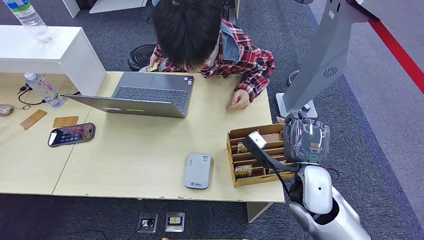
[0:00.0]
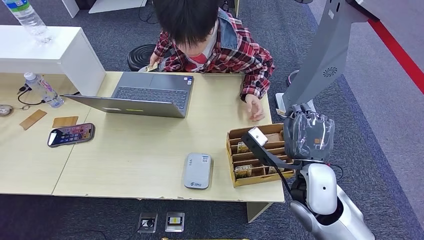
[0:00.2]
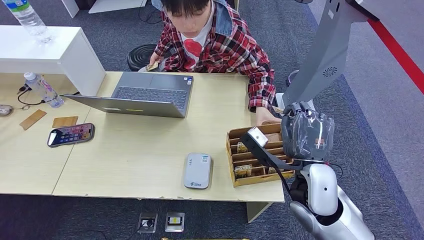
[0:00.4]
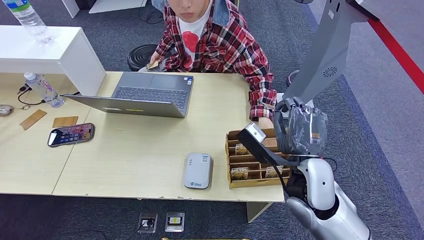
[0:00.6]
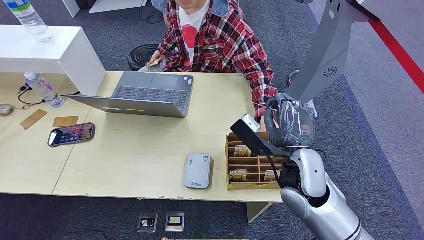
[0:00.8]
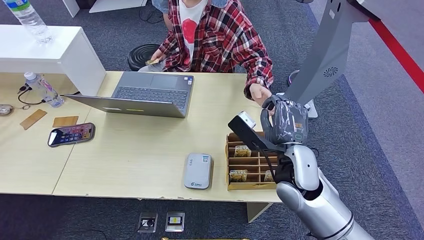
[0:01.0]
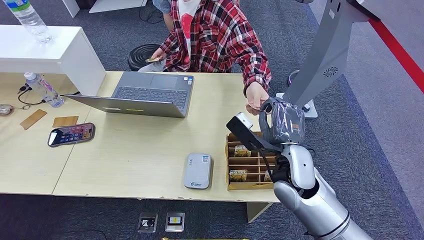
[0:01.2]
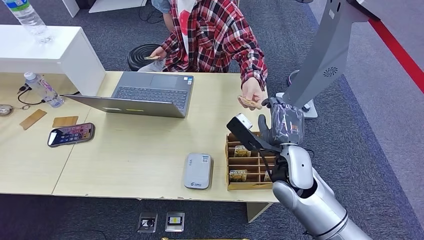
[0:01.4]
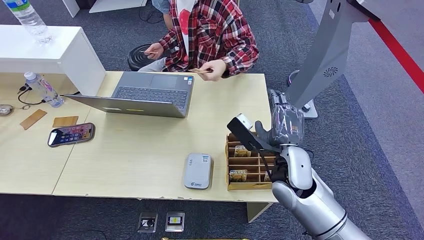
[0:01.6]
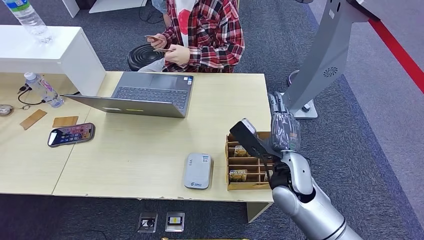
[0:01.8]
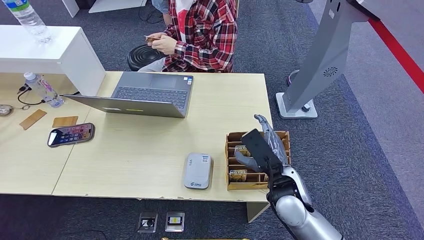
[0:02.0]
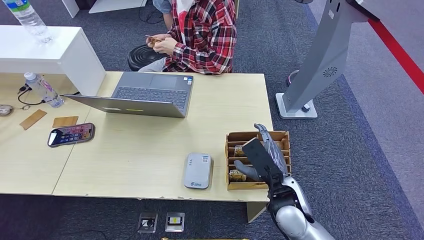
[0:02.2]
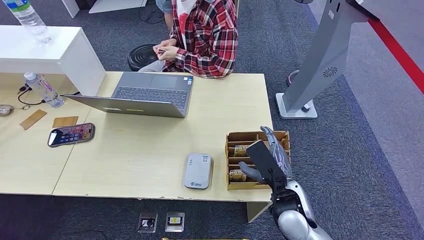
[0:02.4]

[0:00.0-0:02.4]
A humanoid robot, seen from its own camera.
Step, 0:00.4 to 0:02.4: Hand the room key to the person.
0:00.0 to 0:01.2: The right hand changes place by about 5 cm.
0:01.2 to 0:02.4: The right hand is displaced backward and downward by roughly 10 cm.
